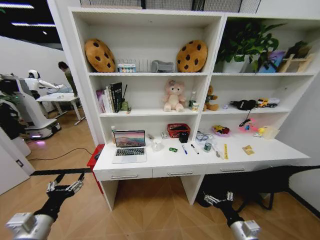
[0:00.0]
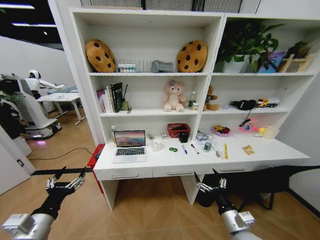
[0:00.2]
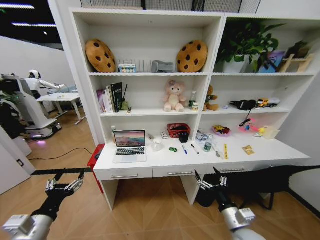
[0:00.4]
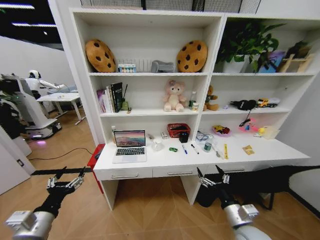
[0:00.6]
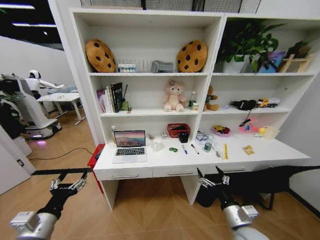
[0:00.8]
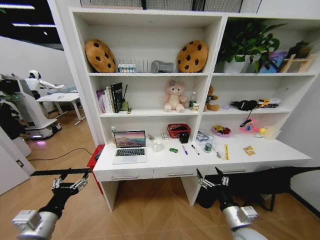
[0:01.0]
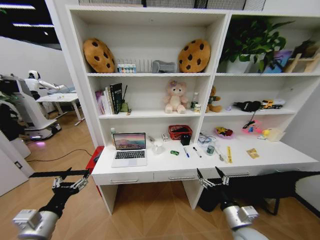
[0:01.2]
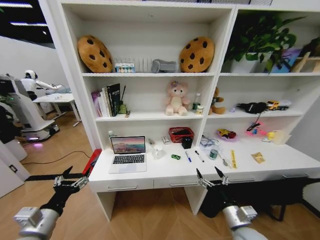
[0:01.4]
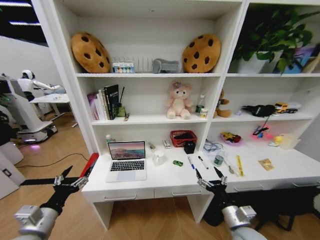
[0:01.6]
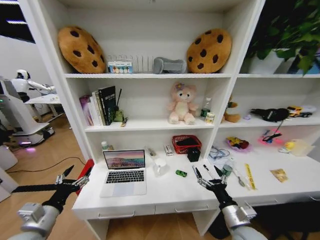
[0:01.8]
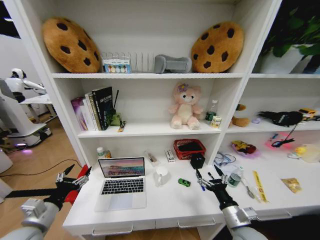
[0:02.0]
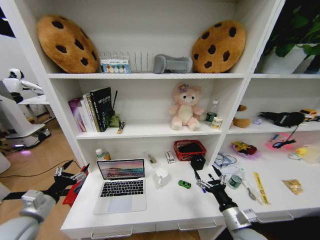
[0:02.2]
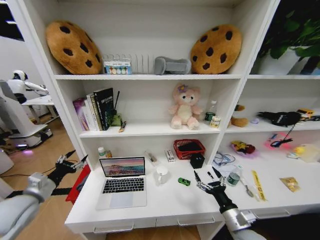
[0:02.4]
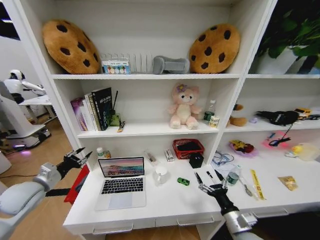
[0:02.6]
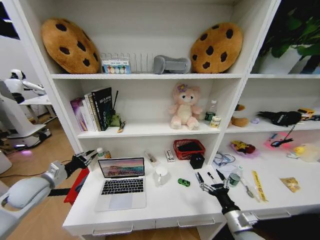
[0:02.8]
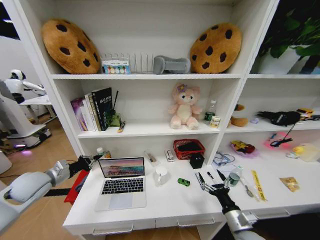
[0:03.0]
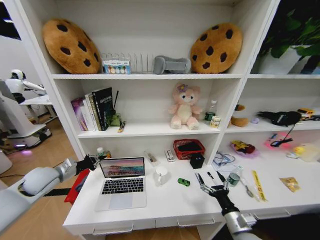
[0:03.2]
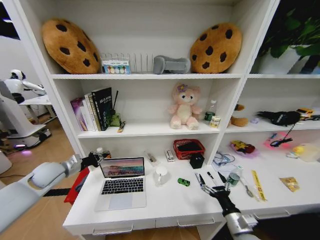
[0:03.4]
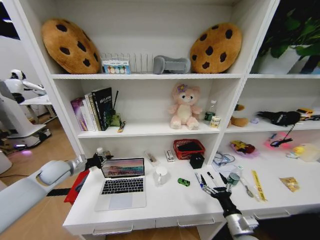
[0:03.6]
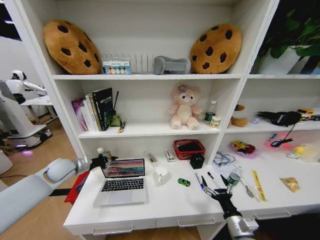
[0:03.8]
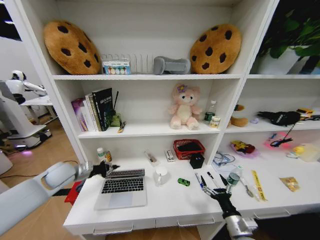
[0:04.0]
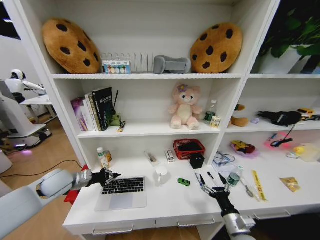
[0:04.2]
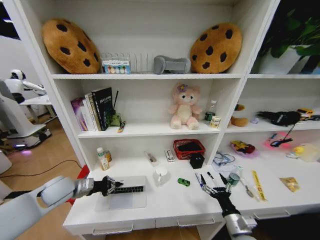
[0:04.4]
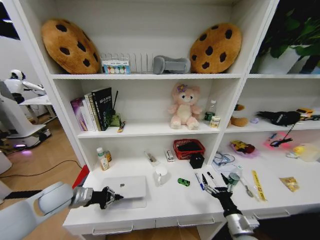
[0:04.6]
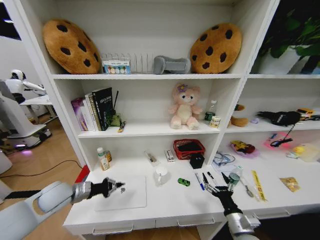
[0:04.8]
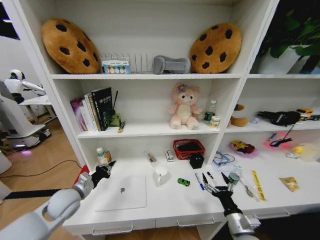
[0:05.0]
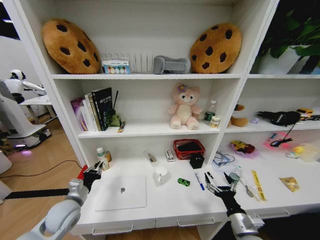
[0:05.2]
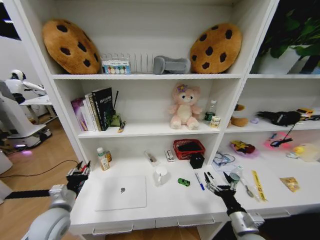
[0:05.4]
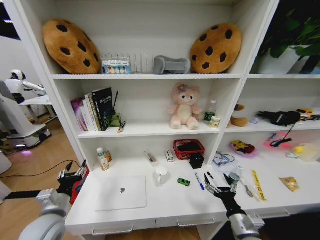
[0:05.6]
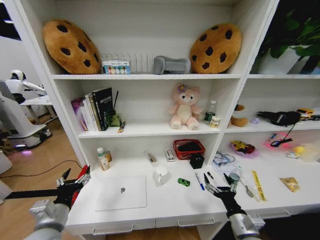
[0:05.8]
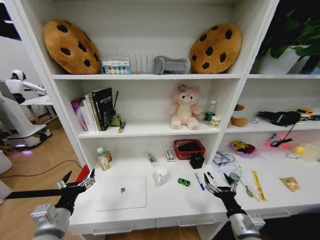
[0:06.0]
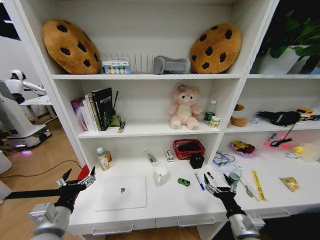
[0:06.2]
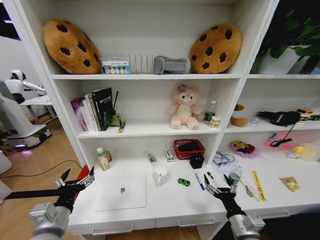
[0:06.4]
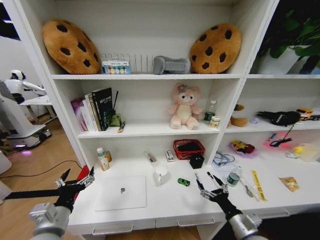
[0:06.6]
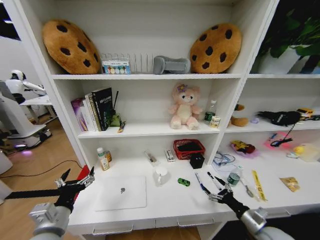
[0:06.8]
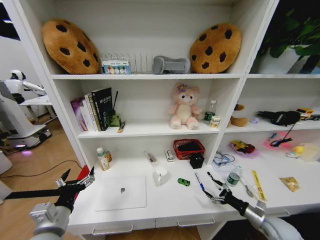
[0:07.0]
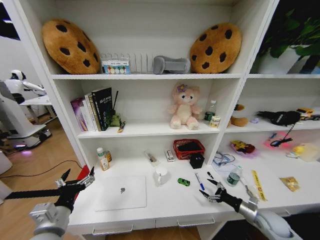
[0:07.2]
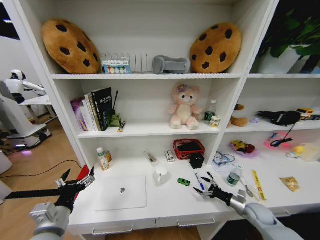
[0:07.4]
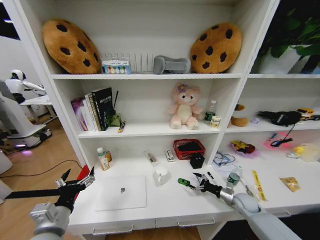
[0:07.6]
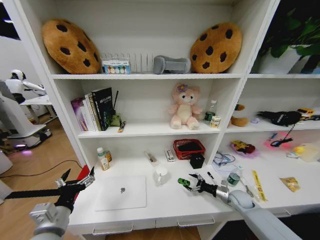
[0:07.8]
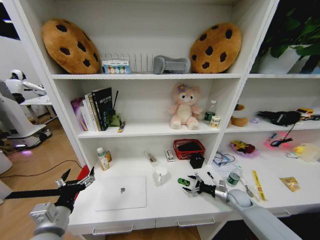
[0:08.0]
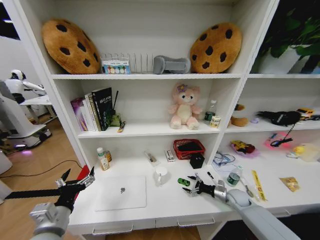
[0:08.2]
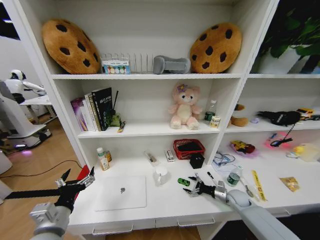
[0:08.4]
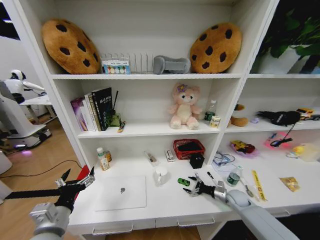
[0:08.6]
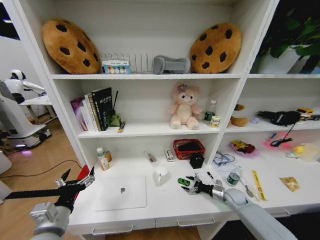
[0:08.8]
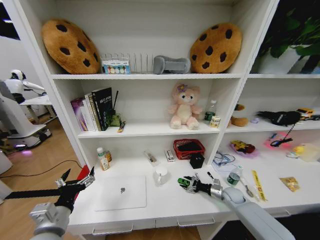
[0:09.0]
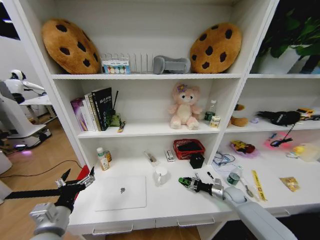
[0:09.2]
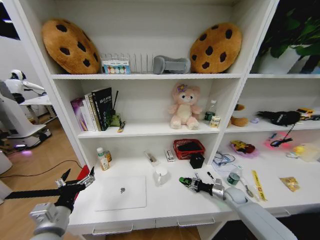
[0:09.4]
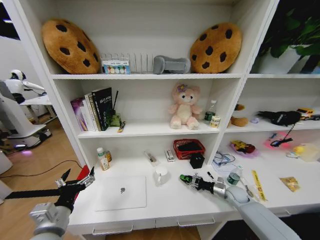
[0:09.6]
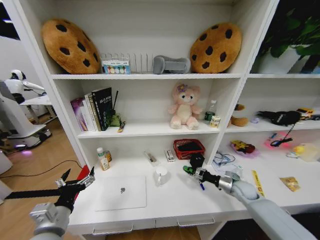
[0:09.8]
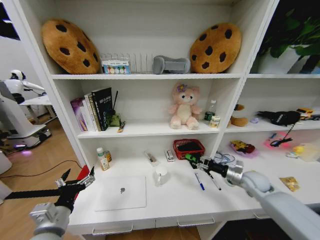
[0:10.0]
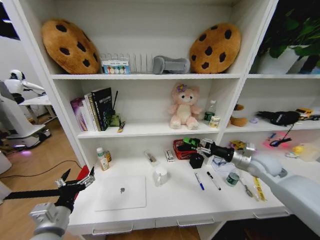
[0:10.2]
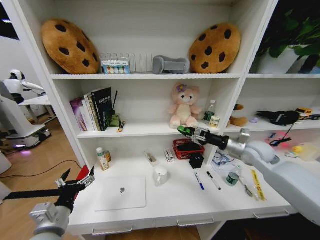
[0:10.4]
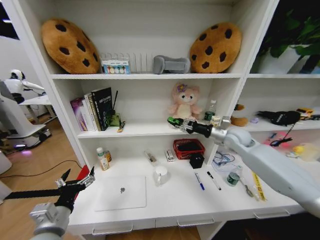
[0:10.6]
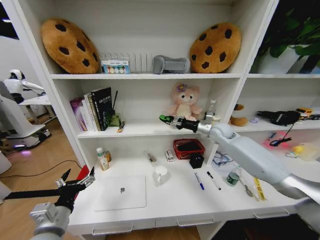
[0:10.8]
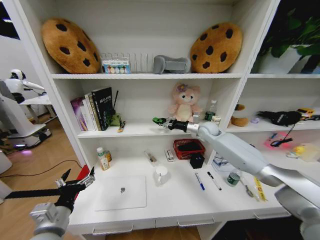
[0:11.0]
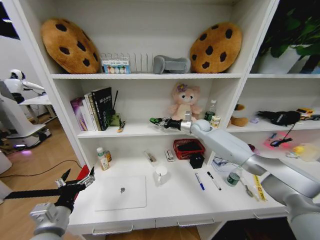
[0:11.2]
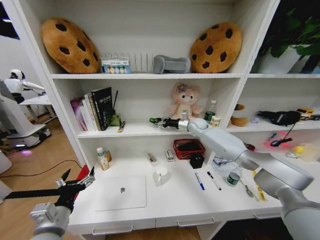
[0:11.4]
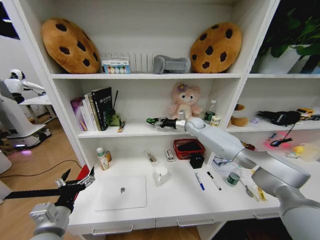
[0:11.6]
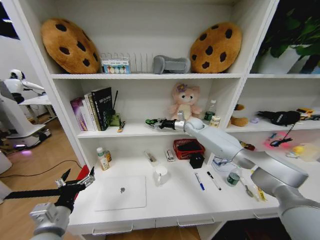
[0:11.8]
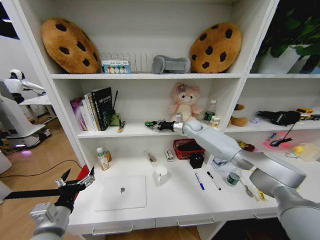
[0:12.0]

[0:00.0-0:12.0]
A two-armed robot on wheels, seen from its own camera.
Task of the whole recording: Organize the objects on the table.
0:01.6 to 0:03.0: The left gripper moves forward and to the left, approximately 20 cm, and closes.
0:03.0 to 0:04.4: The left gripper goes approximately 5 cm to the right, and goes forward and returns, roughly 10 cm each way.
0:04.4 to 0:06.0: The left gripper travels backward by roughly 20 cm, and opens up.
0:06.0 to 0:07.6: The right gripper goes approximately 25 cm forward, to the right and downward.
0:07.6 to 0:09.0: The right gripper is displaced forward by approximately 5 cm.
0:09.0 to 0:10.4: The right gripper is displaced upward by about 30 cm, and closes up.
0:10.4 to 0:12.0: The right gripper heads forward and to the left, covering approximately 25 cm.

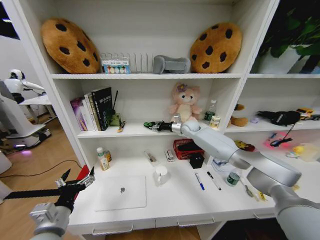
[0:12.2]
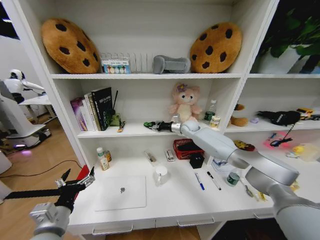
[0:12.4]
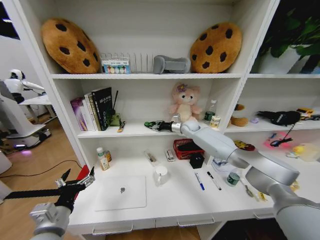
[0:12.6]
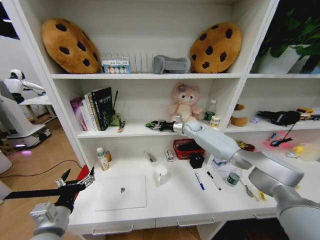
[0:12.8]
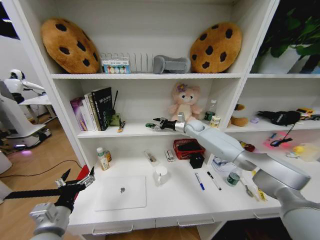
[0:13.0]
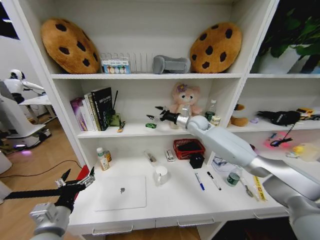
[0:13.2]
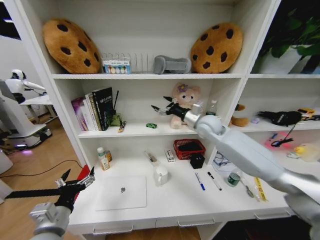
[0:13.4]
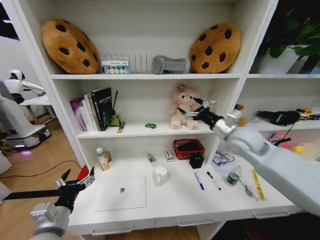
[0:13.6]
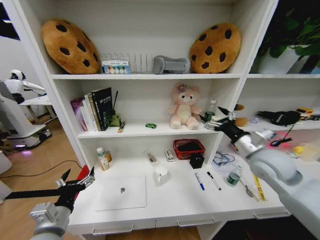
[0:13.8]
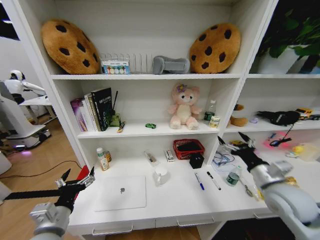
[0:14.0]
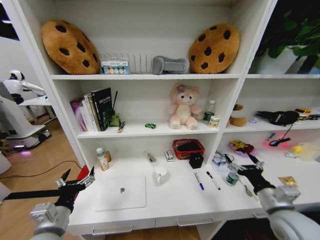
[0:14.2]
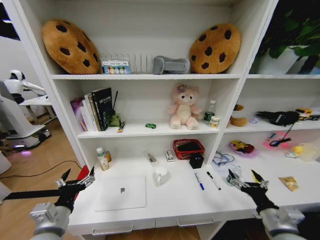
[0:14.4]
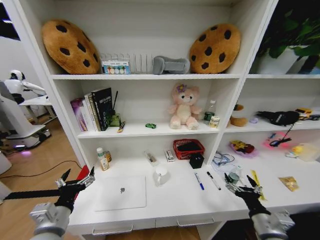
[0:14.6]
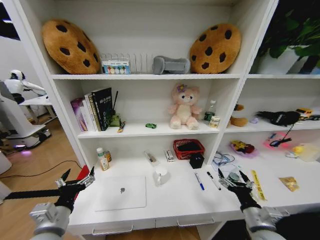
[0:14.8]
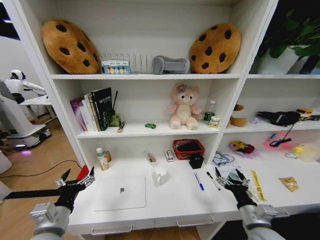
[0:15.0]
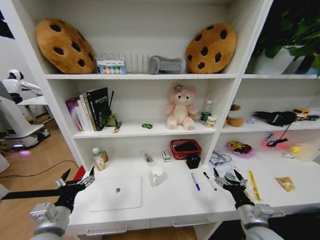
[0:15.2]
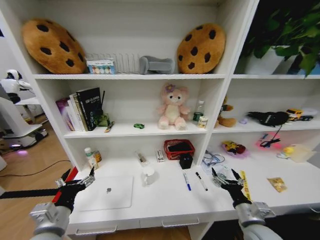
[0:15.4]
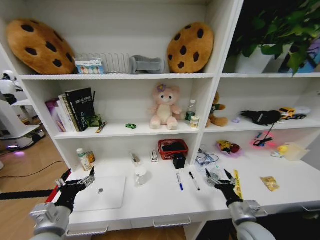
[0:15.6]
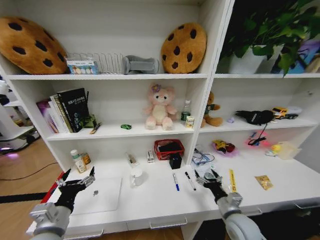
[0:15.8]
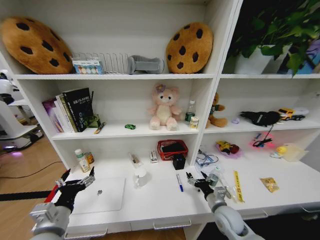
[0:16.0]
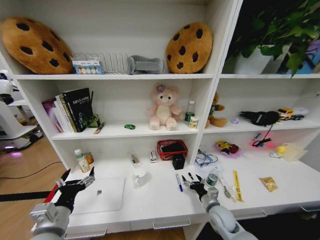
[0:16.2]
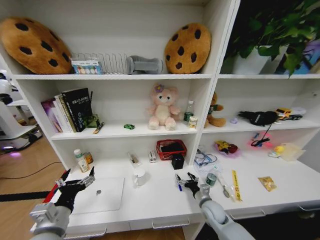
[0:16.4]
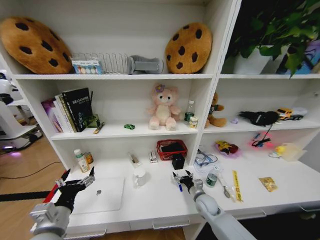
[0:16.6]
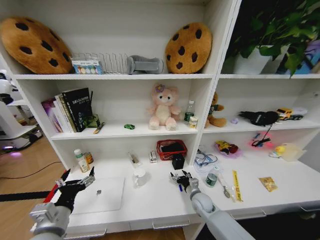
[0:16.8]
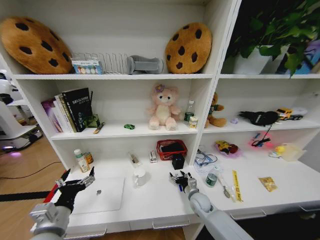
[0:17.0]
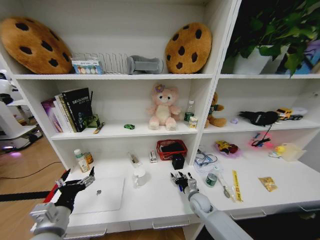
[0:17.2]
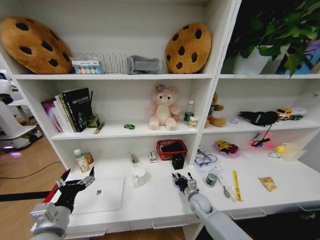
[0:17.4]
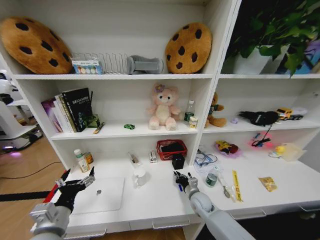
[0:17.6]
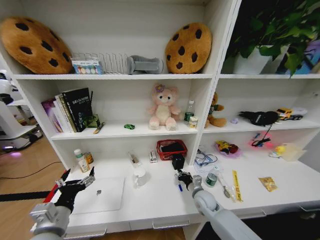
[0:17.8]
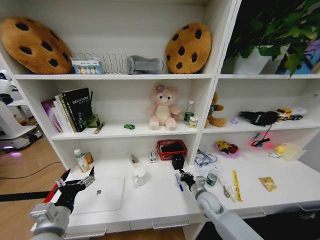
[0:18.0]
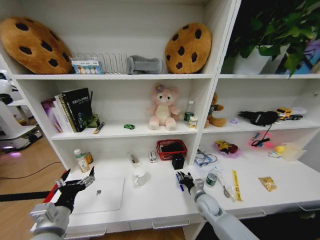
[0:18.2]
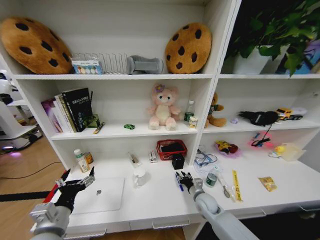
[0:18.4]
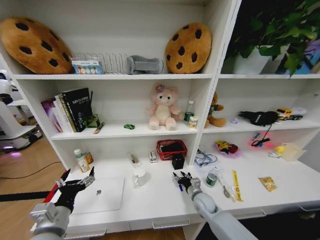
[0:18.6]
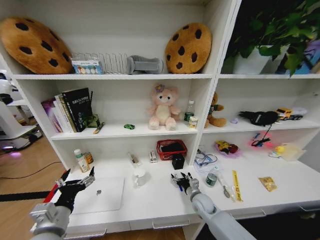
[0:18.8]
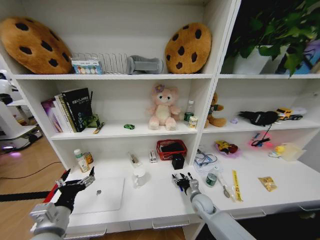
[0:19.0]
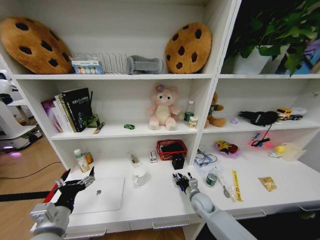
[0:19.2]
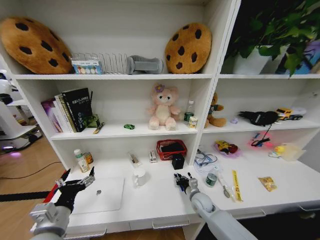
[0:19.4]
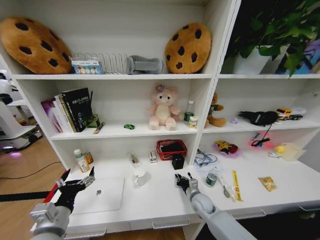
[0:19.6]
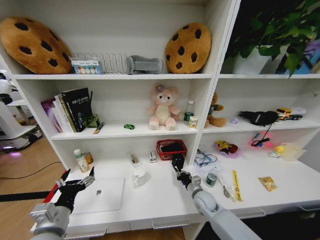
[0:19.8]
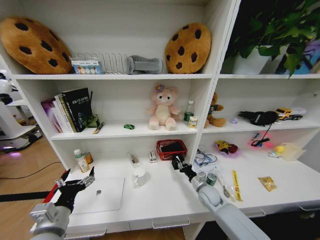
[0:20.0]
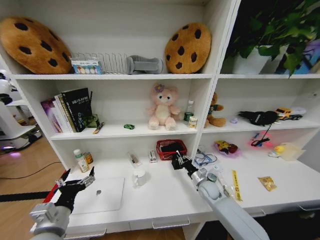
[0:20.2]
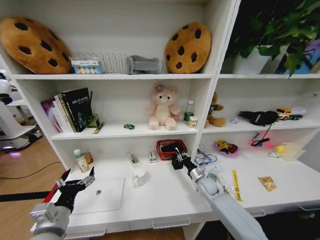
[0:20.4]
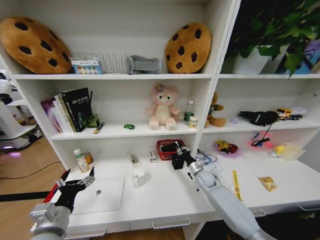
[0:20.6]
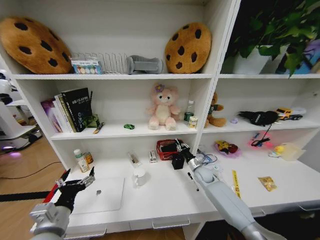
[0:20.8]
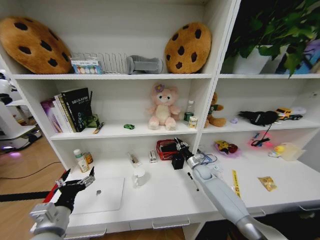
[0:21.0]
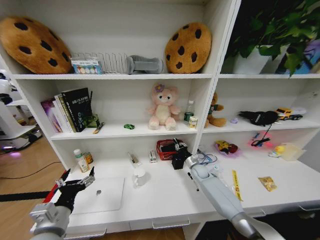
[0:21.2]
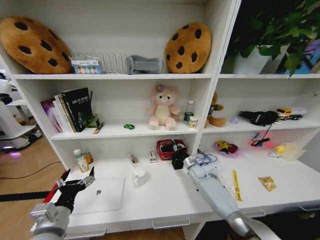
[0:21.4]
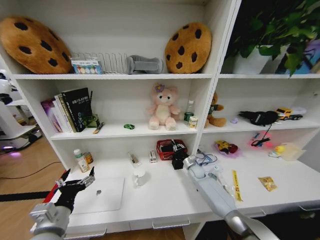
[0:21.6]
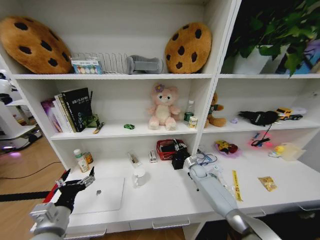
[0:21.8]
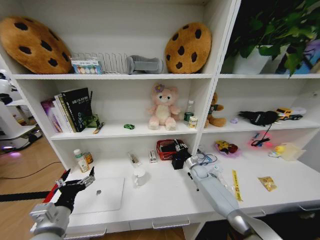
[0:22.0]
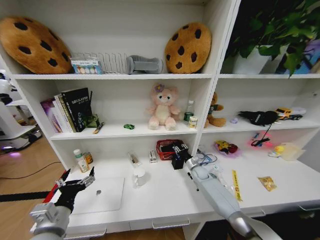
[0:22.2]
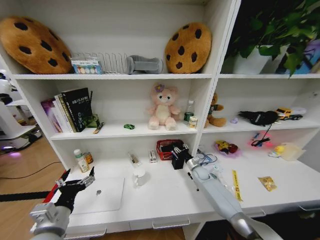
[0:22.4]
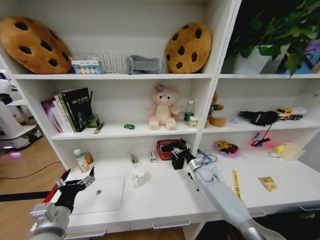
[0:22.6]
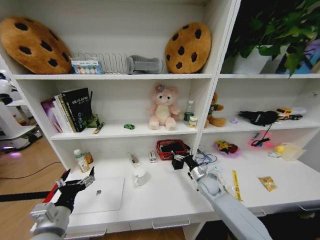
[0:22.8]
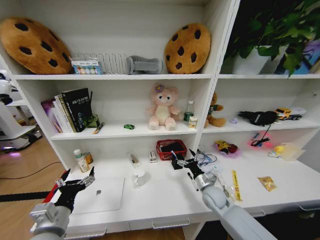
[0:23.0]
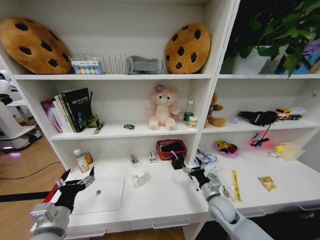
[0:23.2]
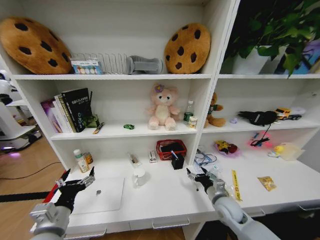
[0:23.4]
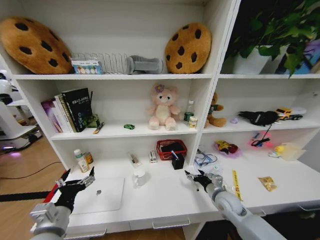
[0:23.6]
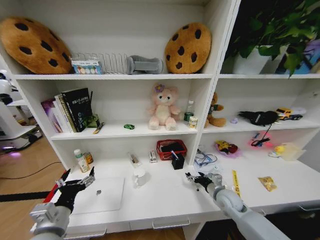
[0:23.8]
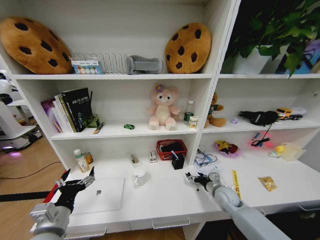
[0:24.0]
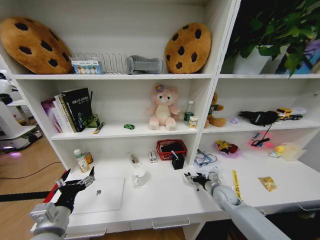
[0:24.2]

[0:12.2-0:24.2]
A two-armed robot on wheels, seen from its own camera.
Task of the whole recording: Organize the objects on the table.
0:12.2 to 0:13.8: The right gripper shifts approximately 30 cm backward and to the right, and opens up.
0:13.8 to 0:15.2: The right gripper heads downward and backward, covering some 25 cm.
0:15.2 to 0:16.6: The right gripper moves forward, downward and to the left, about 20 cm.
0:16.6 to 0:18.2: The right gripper closes.
0:18.2 to 0:19.8: The right gripper opens and closes again.
0:19.8 to 0:21.2: The right gripper is displaced forward by about 15 cm.
0:21.2 to 0:22.6: The right gripper opens up.
0:22.6 to 0:24.2: The right gripper heads backward, covering some 15 cm.
